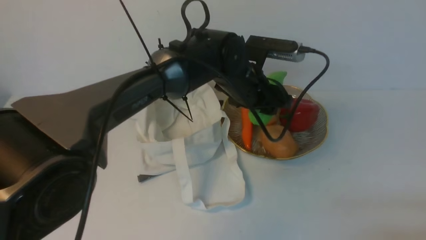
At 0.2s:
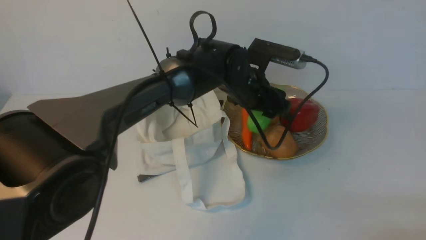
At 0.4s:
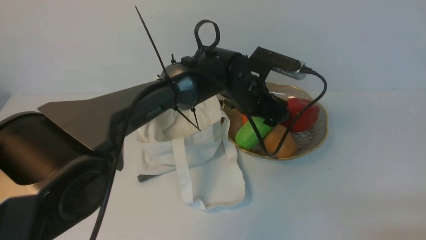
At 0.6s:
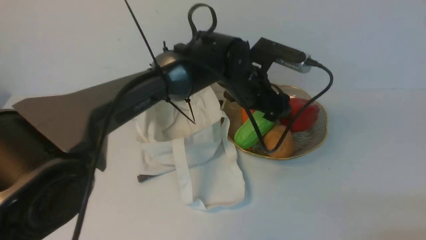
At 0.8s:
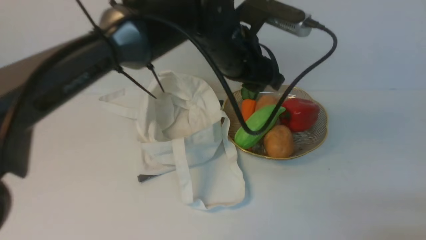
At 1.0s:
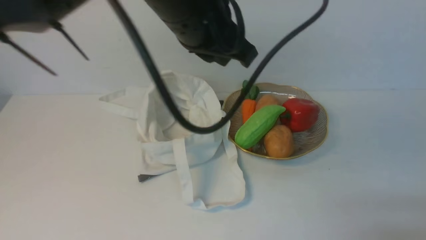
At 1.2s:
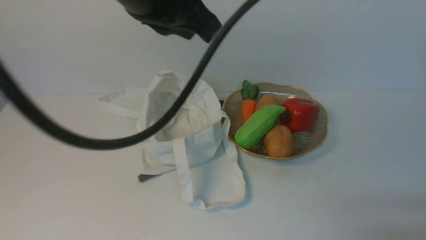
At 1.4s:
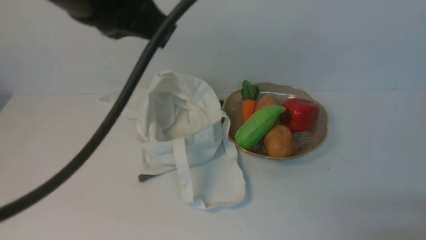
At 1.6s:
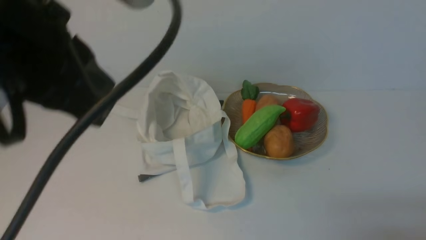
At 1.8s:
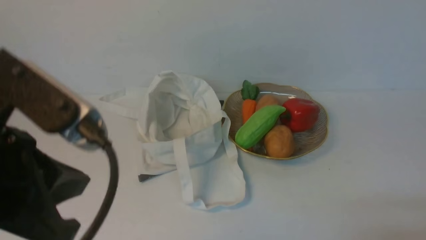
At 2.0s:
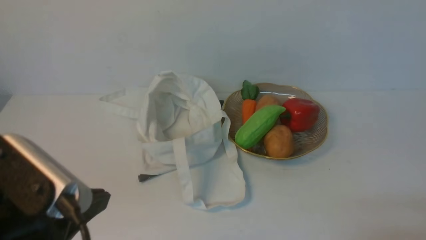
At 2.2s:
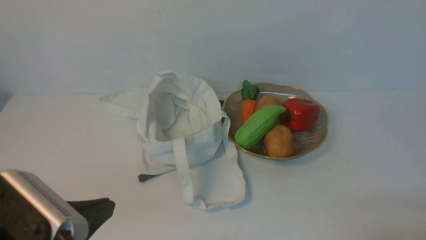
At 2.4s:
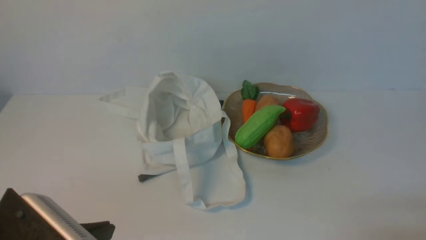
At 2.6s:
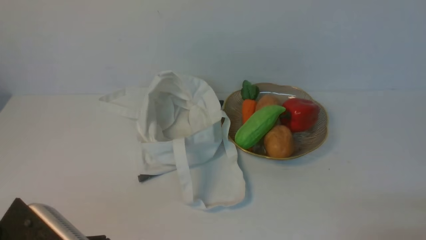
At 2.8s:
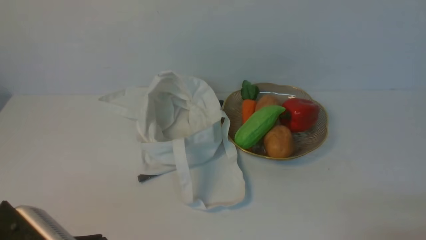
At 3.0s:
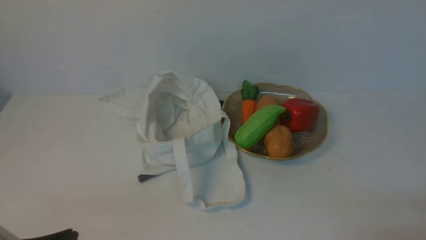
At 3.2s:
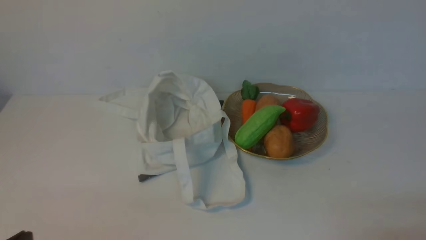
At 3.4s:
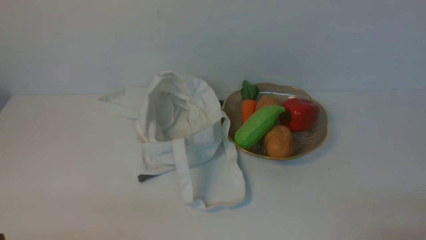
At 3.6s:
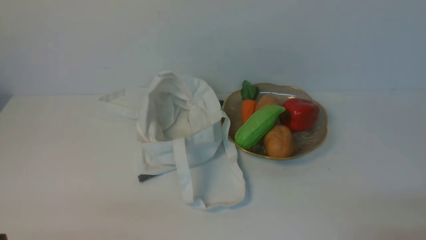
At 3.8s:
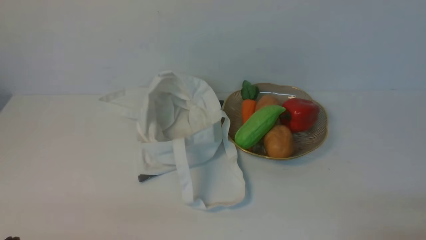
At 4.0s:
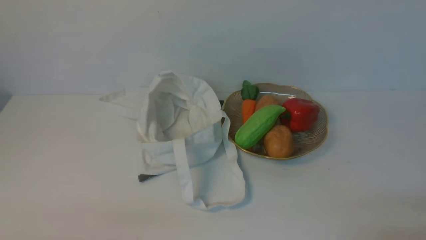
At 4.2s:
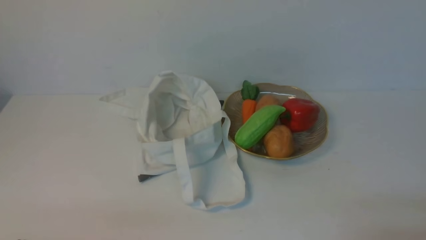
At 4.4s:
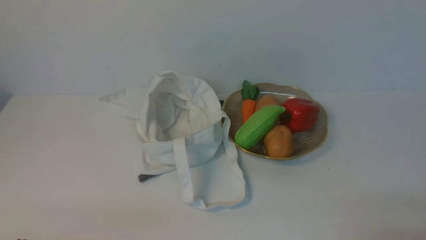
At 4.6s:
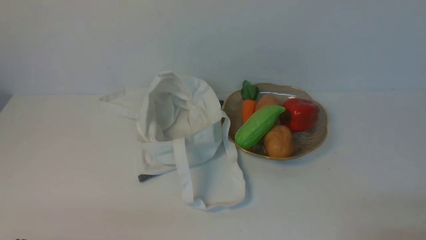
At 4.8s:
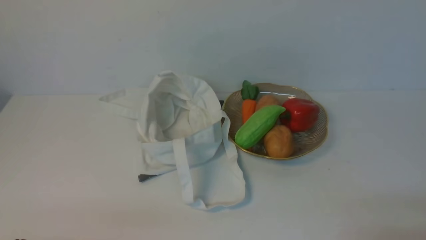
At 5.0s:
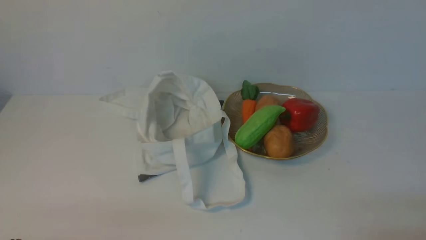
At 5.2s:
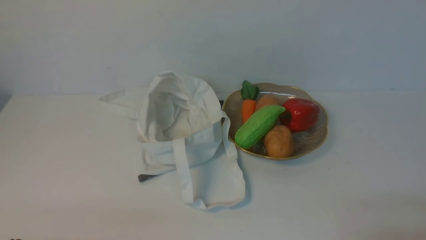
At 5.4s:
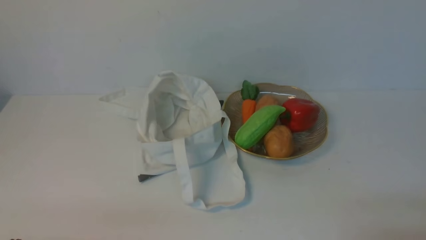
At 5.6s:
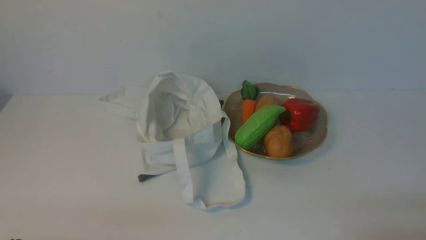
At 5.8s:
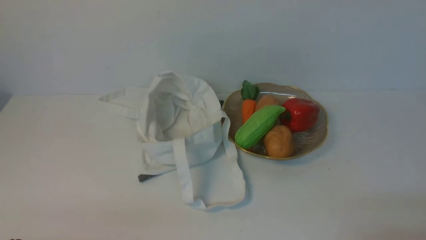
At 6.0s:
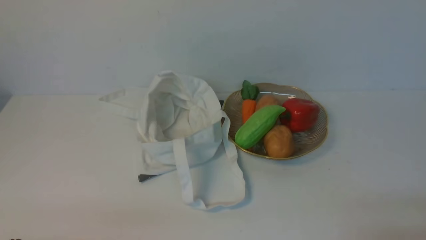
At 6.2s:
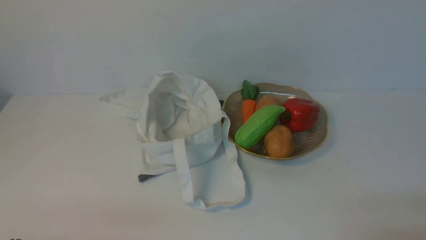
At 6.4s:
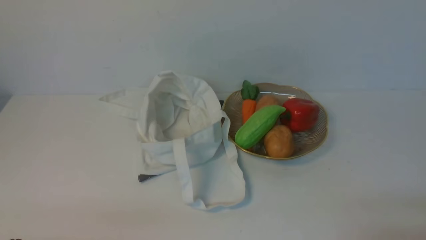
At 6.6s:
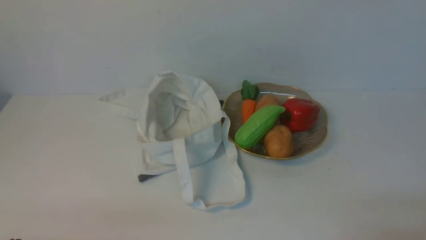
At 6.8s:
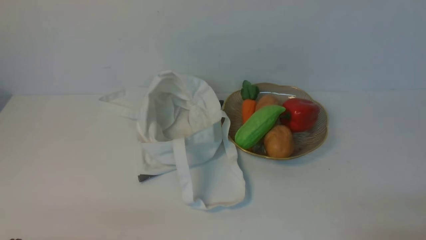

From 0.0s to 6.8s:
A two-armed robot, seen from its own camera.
Task of the whole recording: take vegetables from cloth bag on white table place on plate.
From 0.0s to 1.4s: The left gripper travels upward, backward and to the left by some 30 cm, and closes.
From 1.4s to 2.8s: The left gripper is displaced downward, backward and to the left by roughly 30 cm.
From 2.8s to 4.0s: The left gripper moves to the left and downward, roughly 10 cm.
From 4.0s to 6.8s: The two grippers keep their place.

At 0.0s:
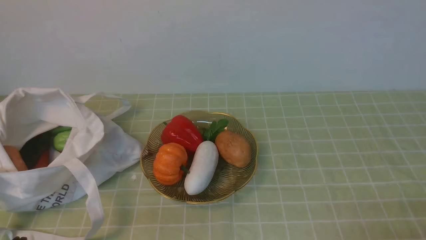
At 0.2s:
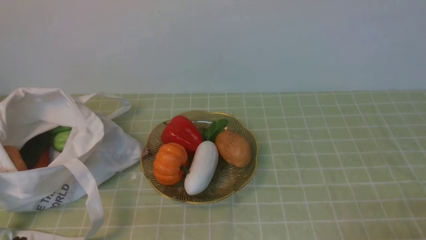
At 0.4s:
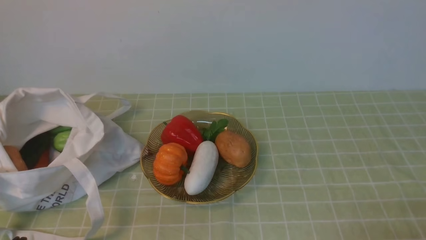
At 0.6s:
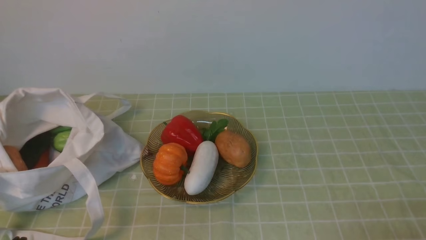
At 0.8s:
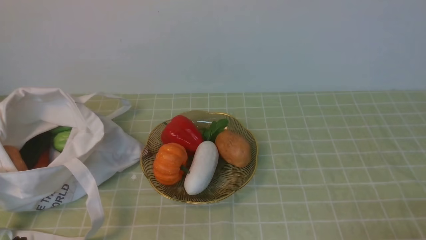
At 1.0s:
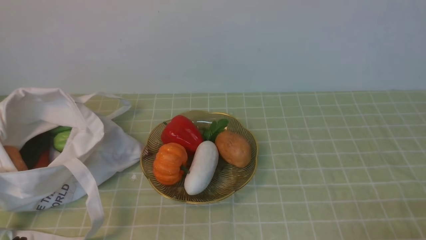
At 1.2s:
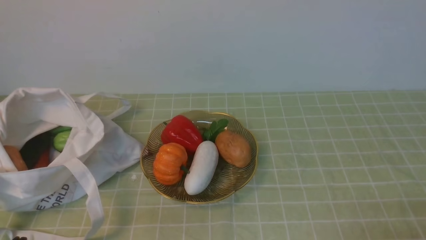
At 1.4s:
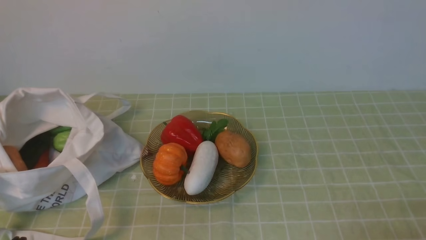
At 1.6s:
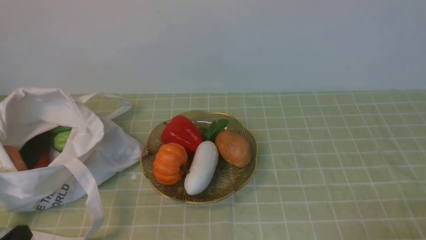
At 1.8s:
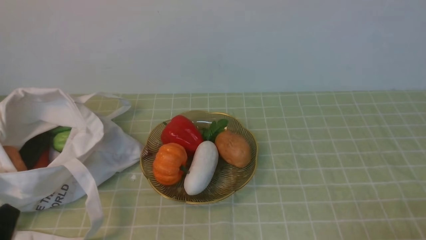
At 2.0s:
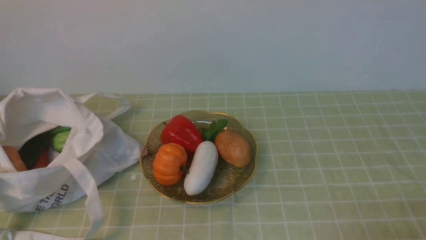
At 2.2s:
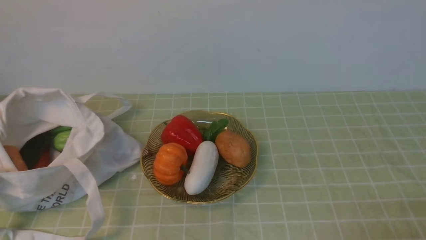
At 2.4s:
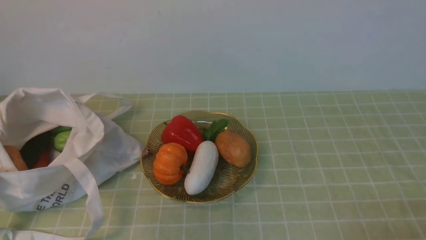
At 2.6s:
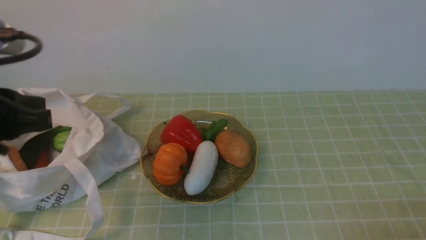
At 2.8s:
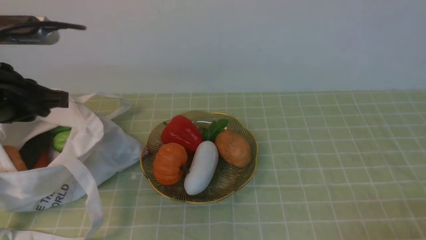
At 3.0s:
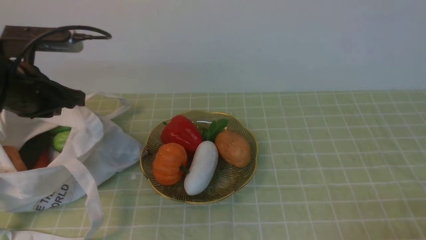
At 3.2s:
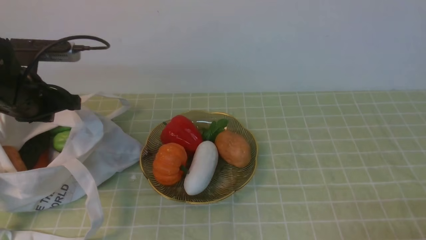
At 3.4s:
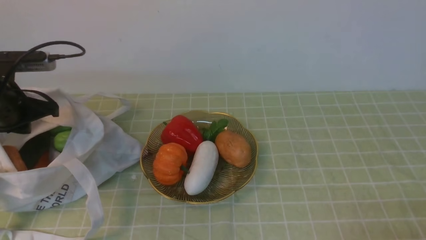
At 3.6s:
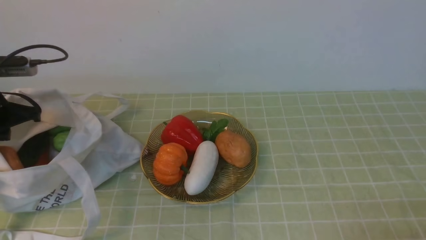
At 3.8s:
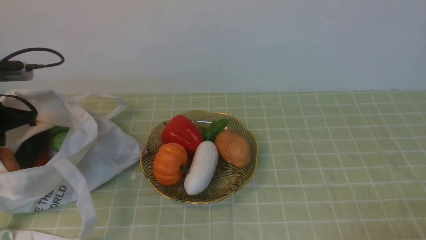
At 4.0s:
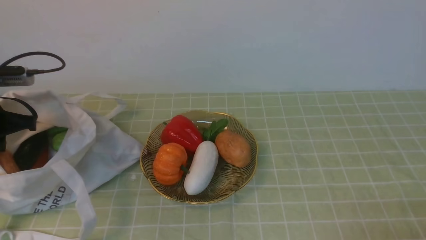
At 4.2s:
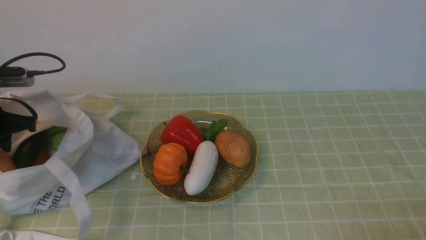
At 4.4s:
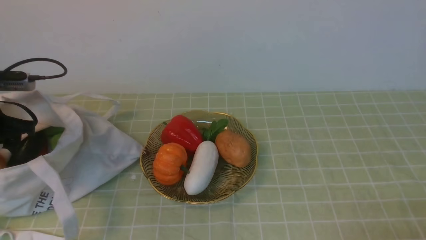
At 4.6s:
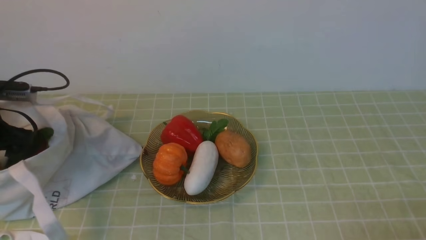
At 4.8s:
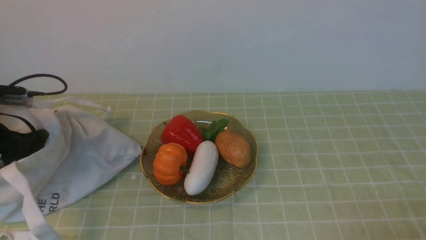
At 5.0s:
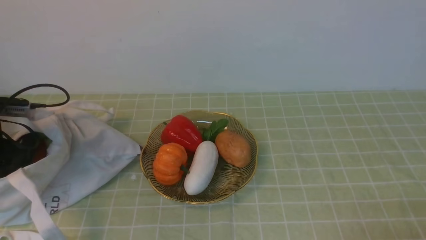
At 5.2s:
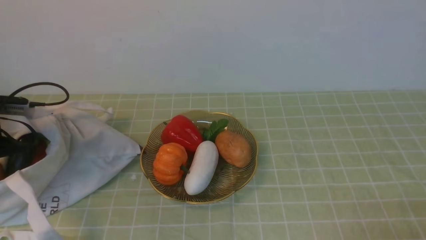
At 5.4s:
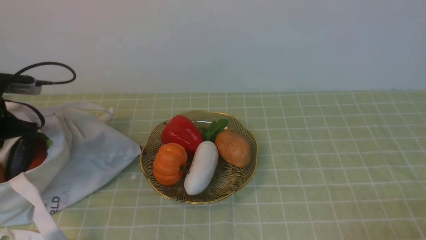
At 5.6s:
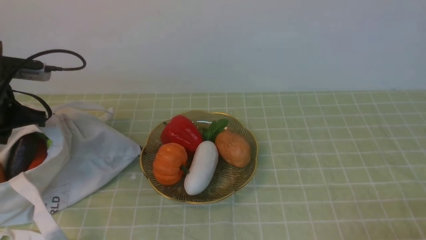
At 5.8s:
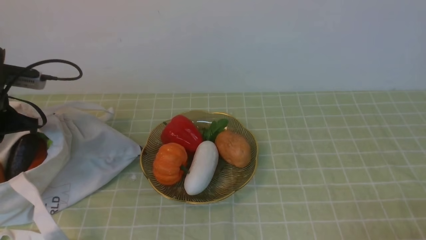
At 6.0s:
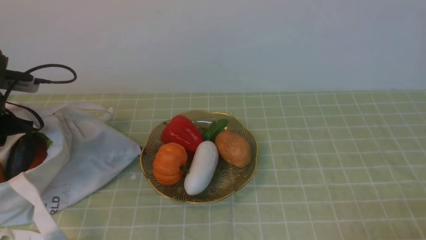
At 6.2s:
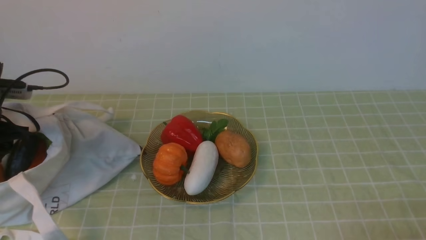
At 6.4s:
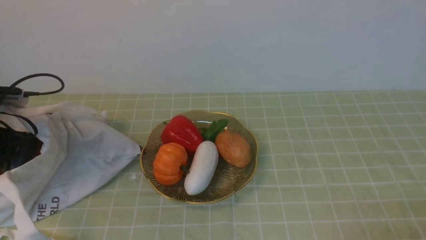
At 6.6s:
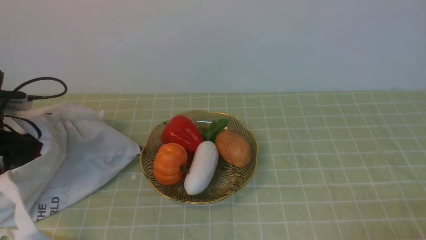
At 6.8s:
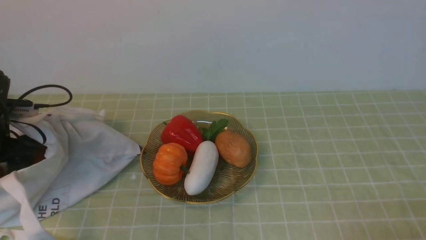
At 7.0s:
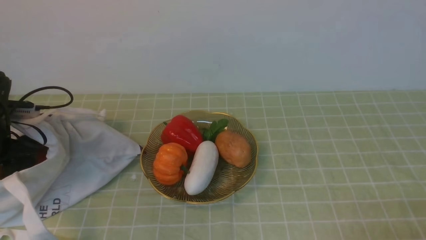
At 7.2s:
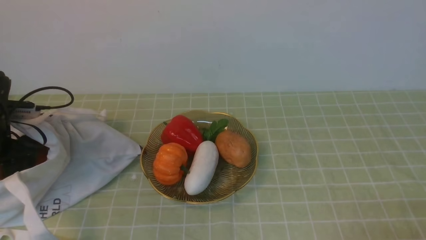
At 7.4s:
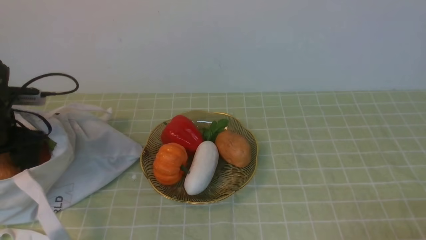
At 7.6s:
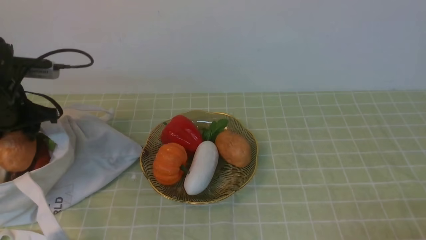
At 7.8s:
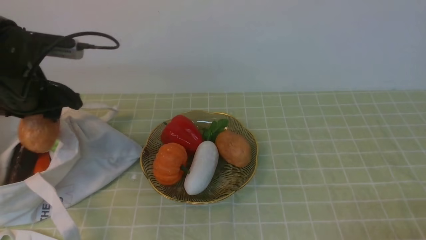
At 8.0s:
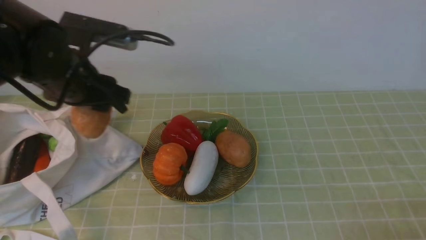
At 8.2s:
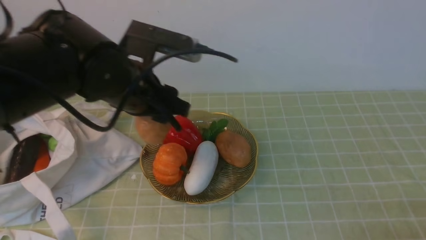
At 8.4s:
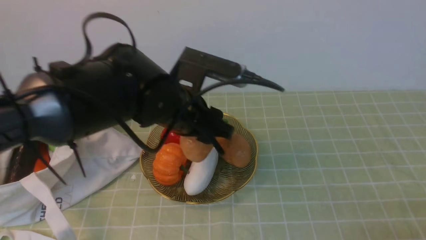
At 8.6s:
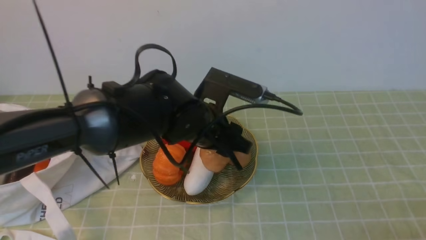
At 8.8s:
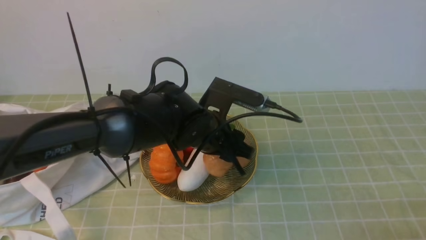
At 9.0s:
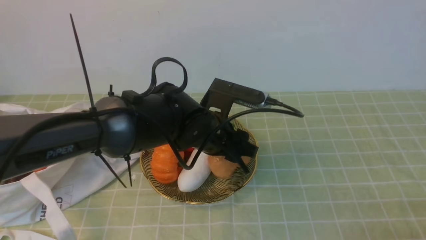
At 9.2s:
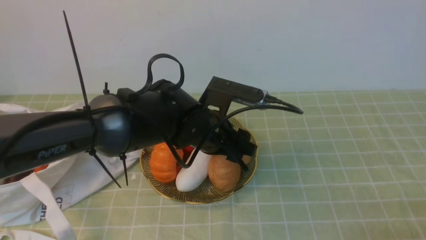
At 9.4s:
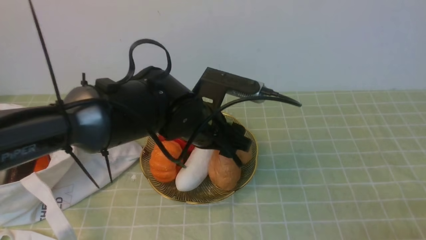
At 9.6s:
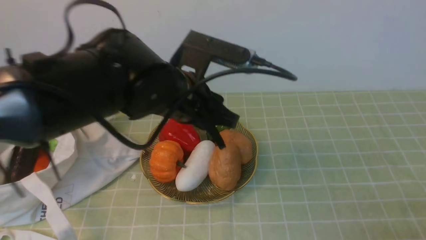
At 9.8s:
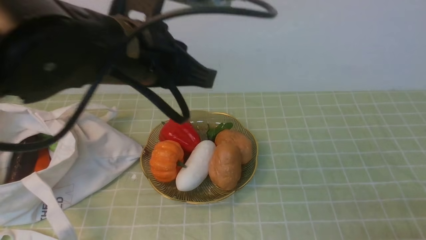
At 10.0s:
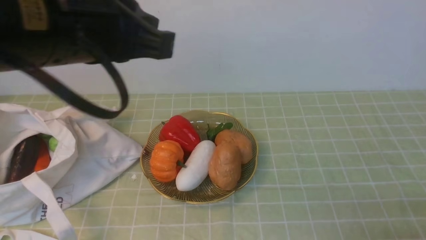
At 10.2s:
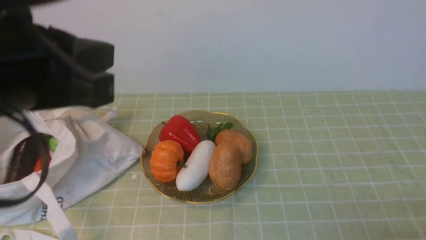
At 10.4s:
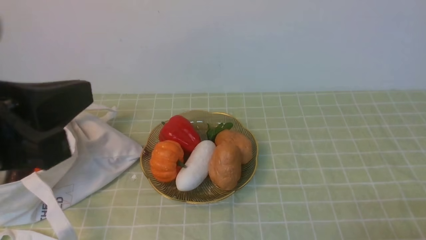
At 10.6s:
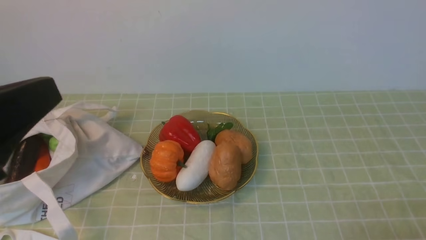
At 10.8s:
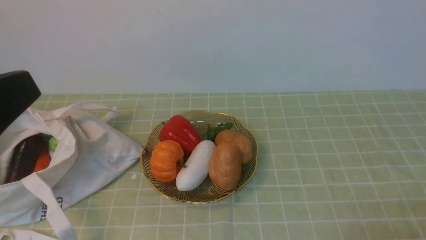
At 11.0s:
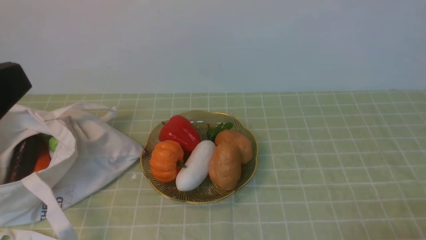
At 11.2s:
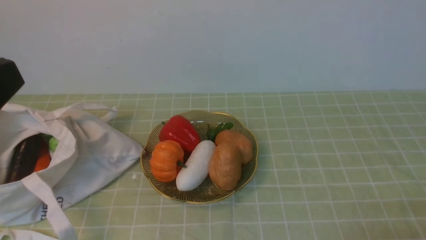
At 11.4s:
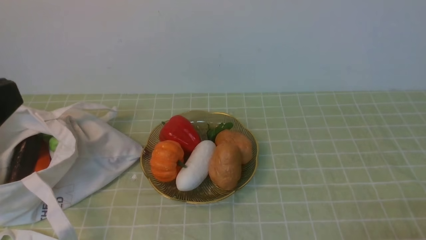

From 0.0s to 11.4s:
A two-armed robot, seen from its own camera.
Task of the whole recording: take vegetables from bag on green coffee tablecloth place on plate.
Step, from 0.0s to 7.2s: Grasp the potato with left gripper.
Step, from 7.4s to 9.4s: Place the potato on the plate with left gripper.
From 1.4s to 2.8s: The left gripper heads forward and upward, covering about 25 cm.
From 2.8s to 4.2s: The left gripper moves to the left, downward and forward, roughly 15 cm.
From 4.2s to 5.6s: The left gripper opens, then closes again.
From 5.6s to 7.2s: The left gripper moves downward, roughly 5 cm, and opens its fingers.
From 7.2s to 8.6s: The left gripper goes some 35 cm to the right.
From 8.6s to 10.0s: The left gripper is displaced upward, backward and to the left by roughly 20 cm, and closes.
From 10.0s to 11.4s: The left gripper goes about 15 cm backward and to the left.
